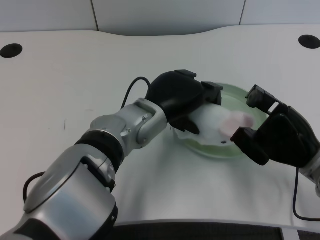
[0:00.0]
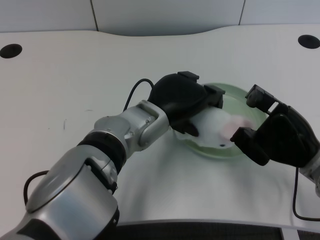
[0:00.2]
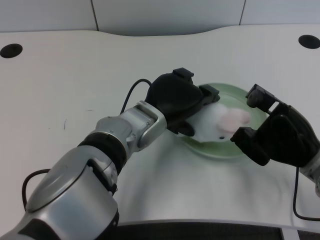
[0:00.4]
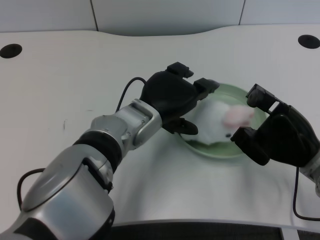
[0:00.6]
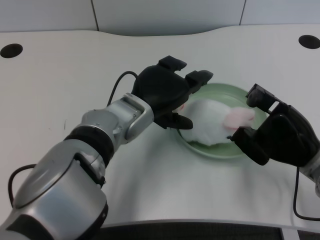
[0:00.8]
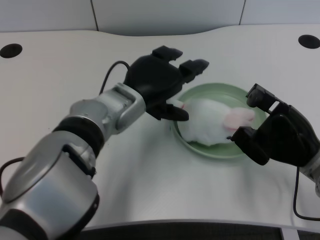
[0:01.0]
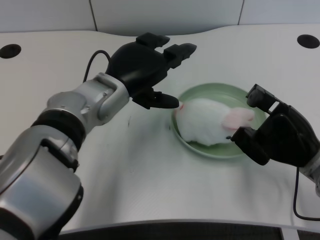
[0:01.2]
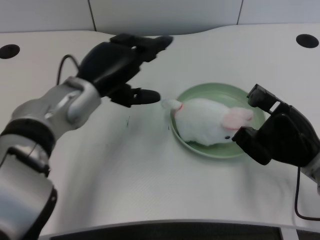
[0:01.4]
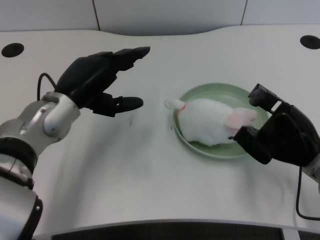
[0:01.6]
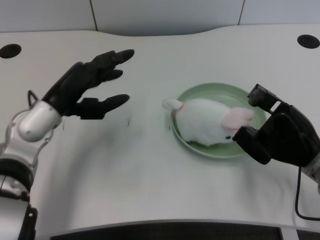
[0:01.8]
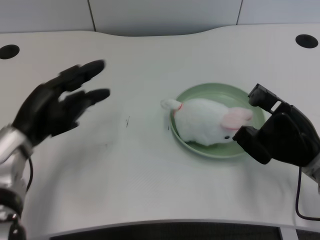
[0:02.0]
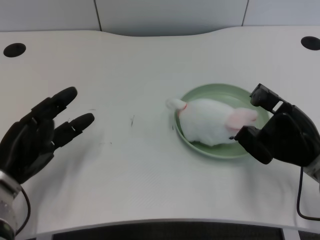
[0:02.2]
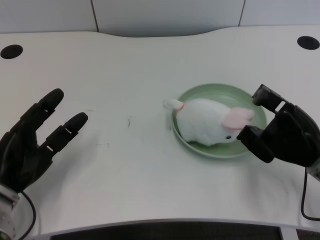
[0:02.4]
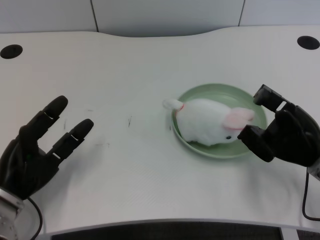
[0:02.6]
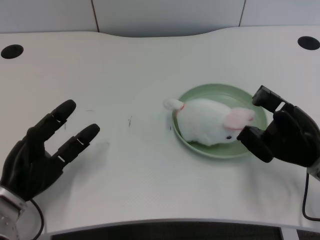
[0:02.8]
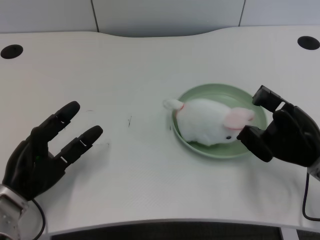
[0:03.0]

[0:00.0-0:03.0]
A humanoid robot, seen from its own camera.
Task of the whole recording: pick up the rabbit doll from the table and place it on the plate.
0:00.0 to 0:01.6: The left hand is displaced to the left by roughly 15 cm.
0:01.6 to 0:03.0: The left hand shifts approximately 15 cm downward, to the left and backward.

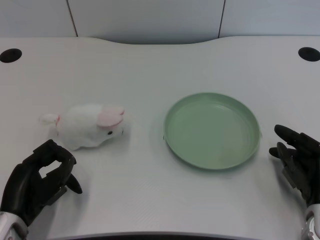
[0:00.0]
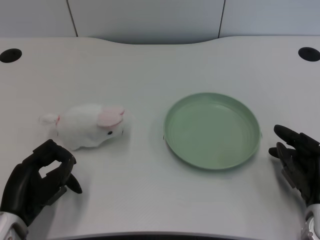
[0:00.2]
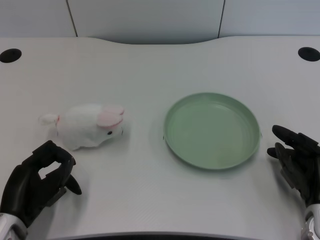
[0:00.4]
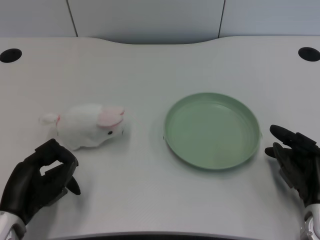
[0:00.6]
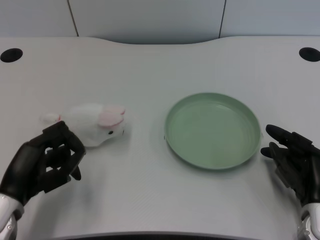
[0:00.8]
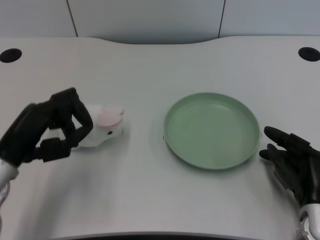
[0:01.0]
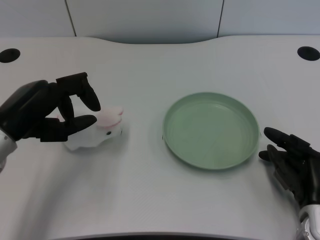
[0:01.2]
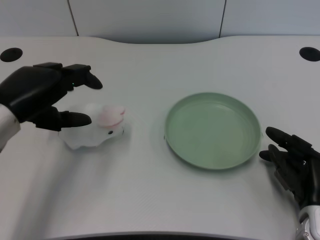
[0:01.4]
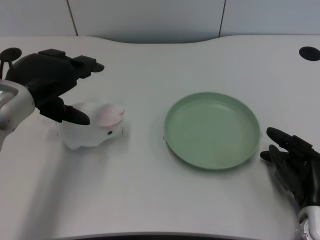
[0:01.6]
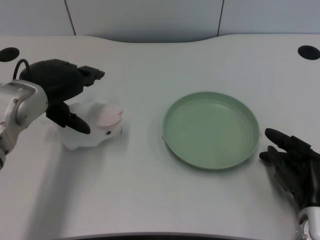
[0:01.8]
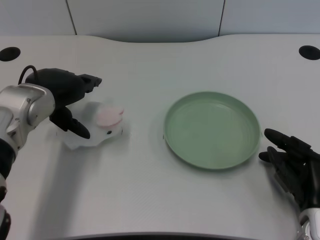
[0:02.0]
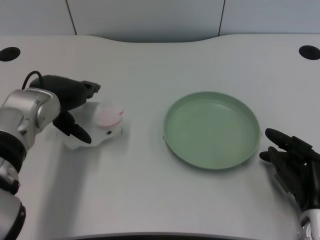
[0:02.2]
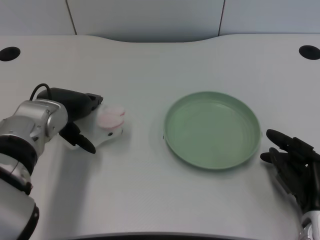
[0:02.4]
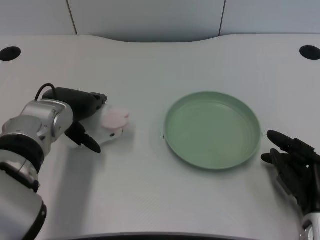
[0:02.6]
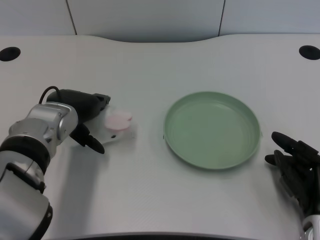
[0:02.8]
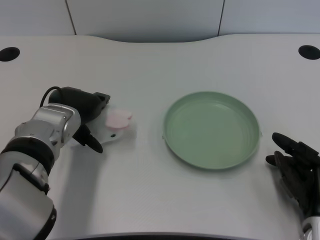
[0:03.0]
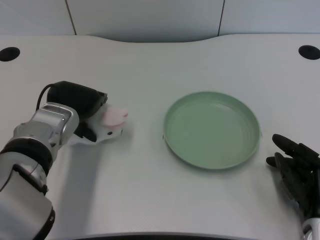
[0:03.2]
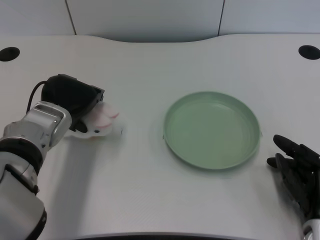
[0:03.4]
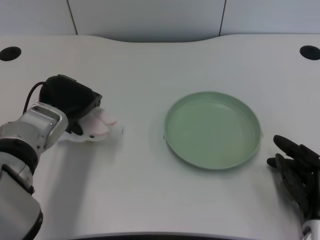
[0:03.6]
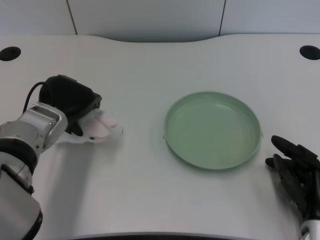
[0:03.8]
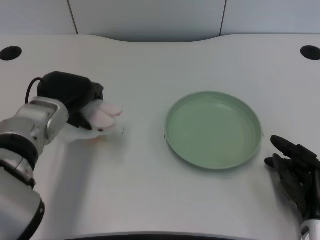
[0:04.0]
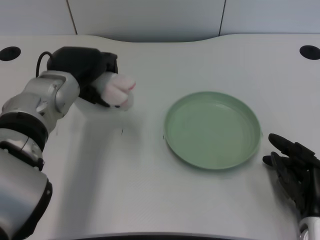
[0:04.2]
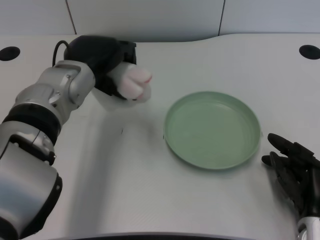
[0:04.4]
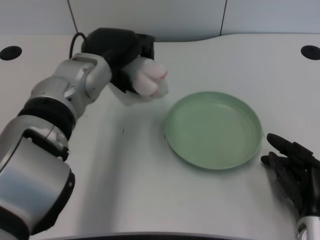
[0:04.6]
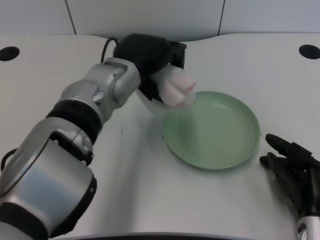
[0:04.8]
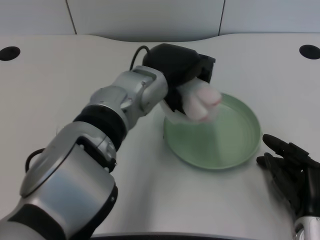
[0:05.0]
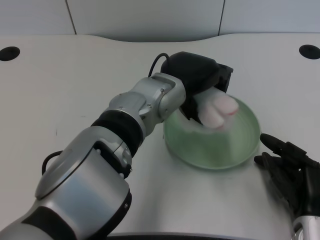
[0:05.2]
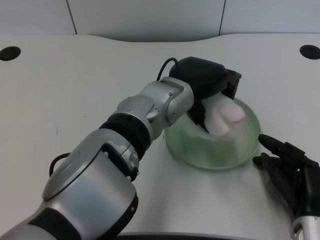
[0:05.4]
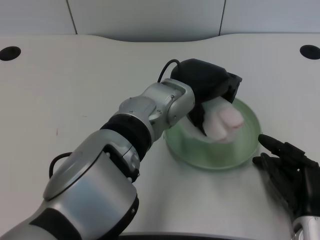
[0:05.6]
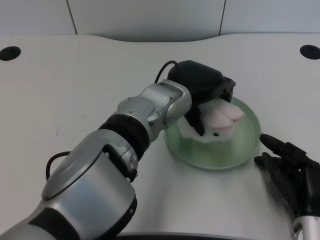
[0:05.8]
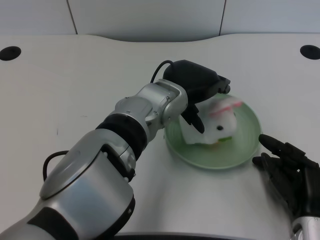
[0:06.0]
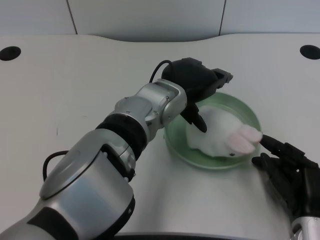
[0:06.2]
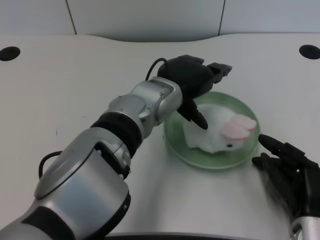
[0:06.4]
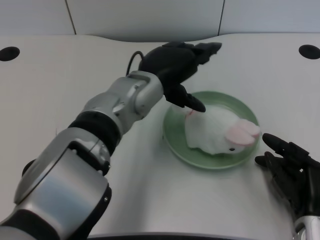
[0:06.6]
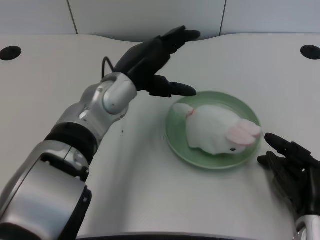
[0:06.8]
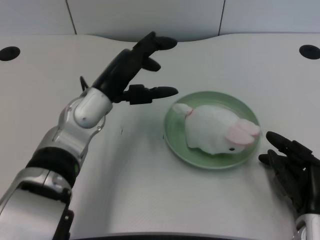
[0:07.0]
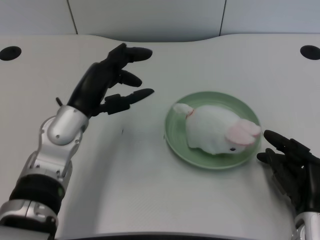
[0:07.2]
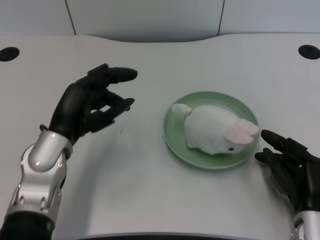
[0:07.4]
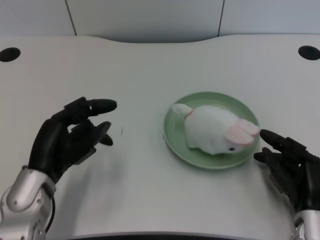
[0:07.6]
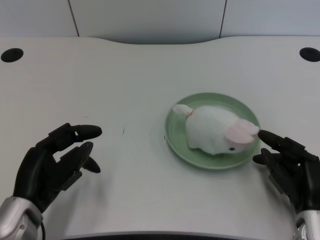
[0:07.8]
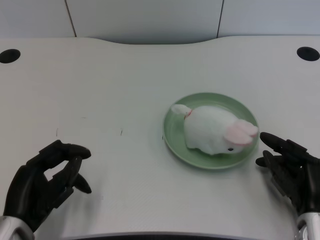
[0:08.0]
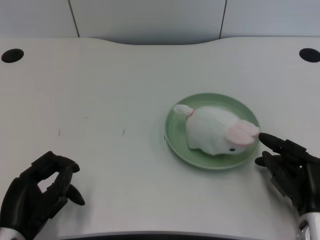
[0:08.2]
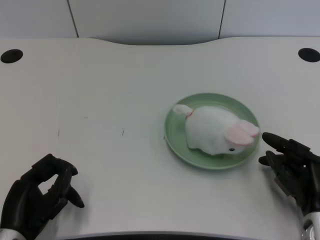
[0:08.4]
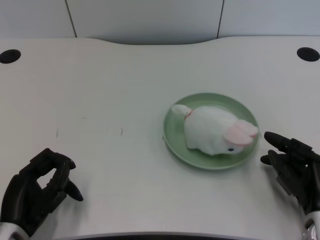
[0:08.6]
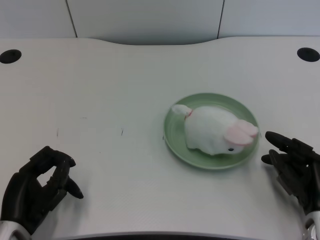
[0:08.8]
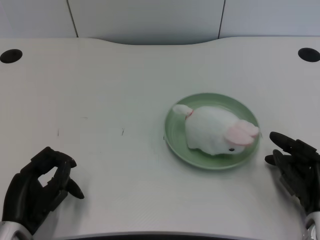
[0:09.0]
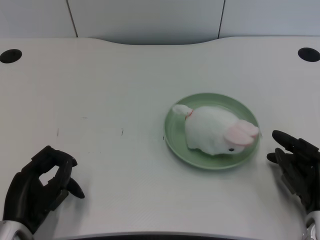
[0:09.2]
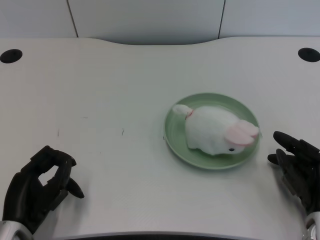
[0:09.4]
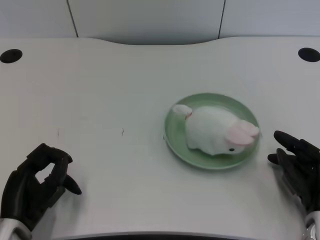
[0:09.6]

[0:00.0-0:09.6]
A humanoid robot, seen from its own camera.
Task of the whole recording: pick up the rabbit doll from the table and place it on the plate.
Step, 0:00.8 to 0:04.0: Grasp the rabbit doll with the left gripper.
Step, 0:04.2 to 0:06.0: Place the rabbit doll into the plate with the left gripper.
0:01.6 to 0:03.2: The left hand heads downward and to the right, covering some 10 cm.
0:03.2 to 0:04.8: The left hand shifts about 10 cm to the right and upward.
0:04.8 to 0:06.4: The left hand goes approximately 5 cm to the right.
0:06.4 to 0:08.0: The left hand moves to the left, backward and downward, roughly 30 cm.
0:08.0 to 0:09.6: There are only small adjustments of the hands.
